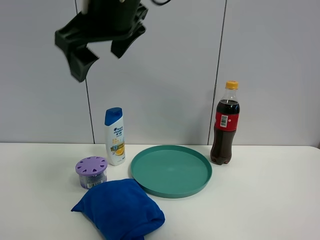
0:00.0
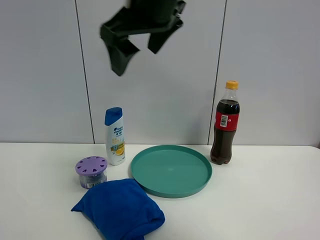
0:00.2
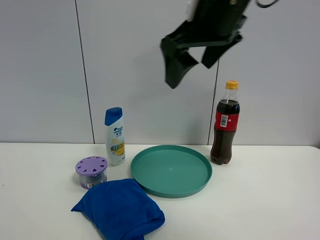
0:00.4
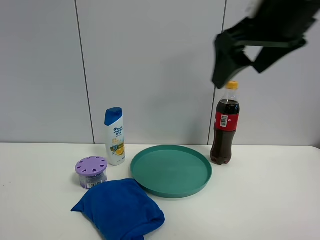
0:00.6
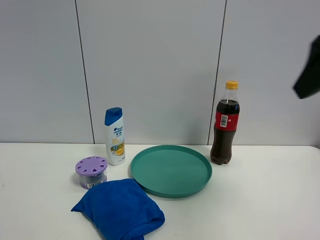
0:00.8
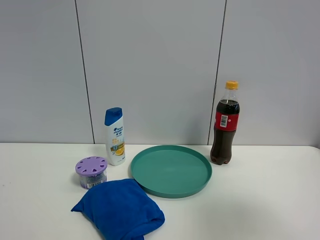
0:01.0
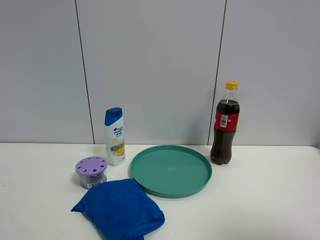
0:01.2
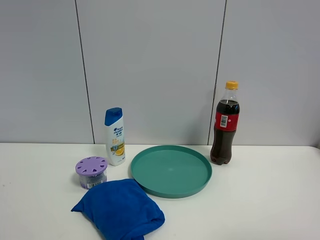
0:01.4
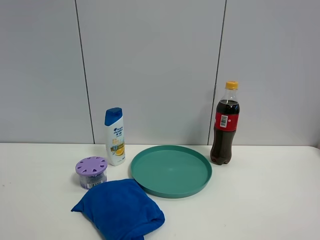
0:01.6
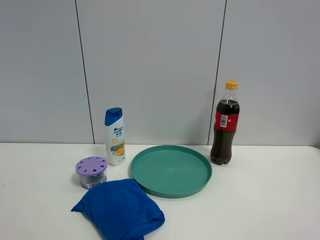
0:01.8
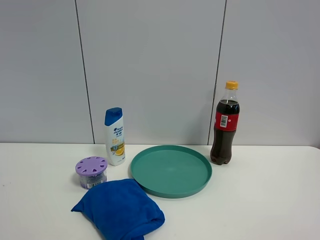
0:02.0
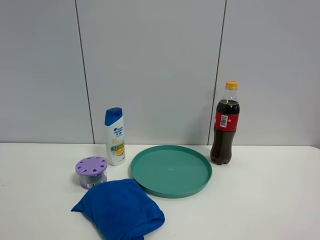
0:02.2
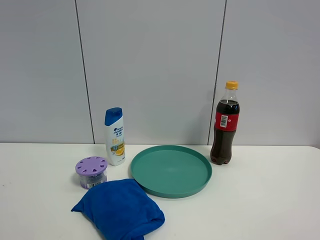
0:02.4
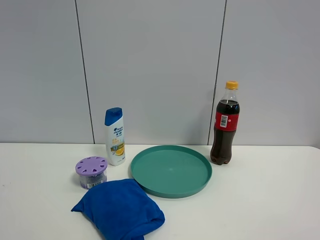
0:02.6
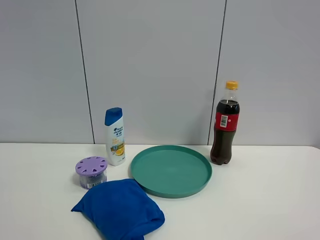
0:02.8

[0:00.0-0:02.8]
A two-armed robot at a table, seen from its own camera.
Task of the whole recording: the gripper move the object.
0:00.0 to 0:01.4: The right gripper goes some 40 cm to the right and backward.

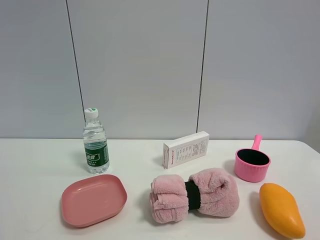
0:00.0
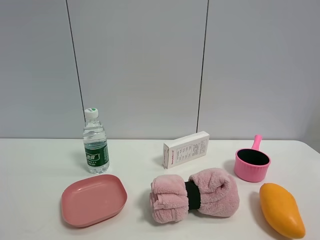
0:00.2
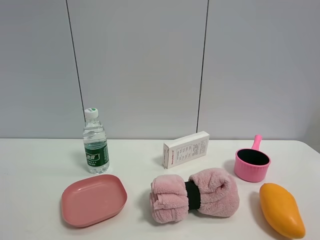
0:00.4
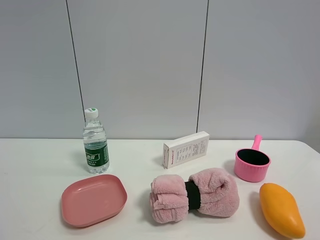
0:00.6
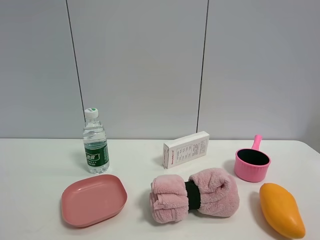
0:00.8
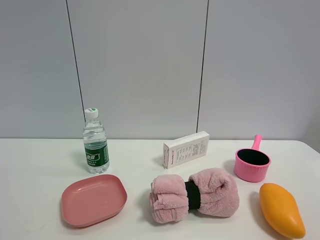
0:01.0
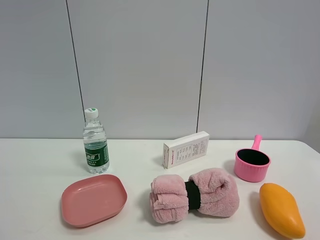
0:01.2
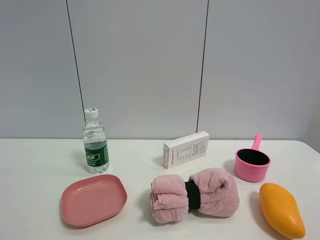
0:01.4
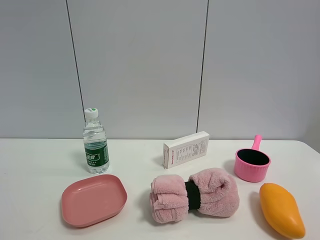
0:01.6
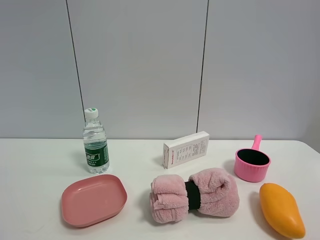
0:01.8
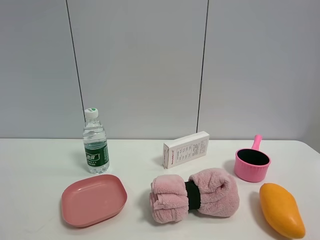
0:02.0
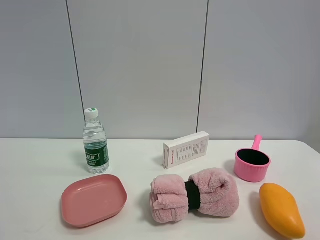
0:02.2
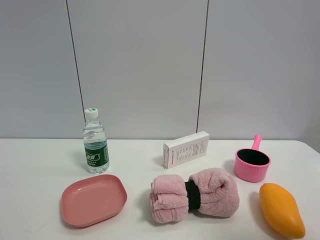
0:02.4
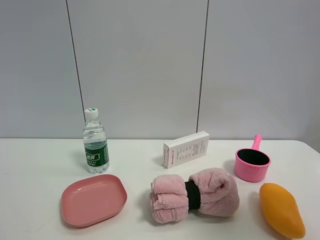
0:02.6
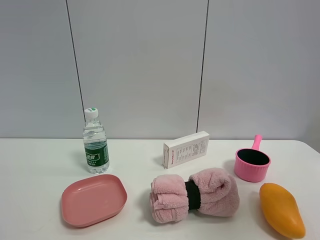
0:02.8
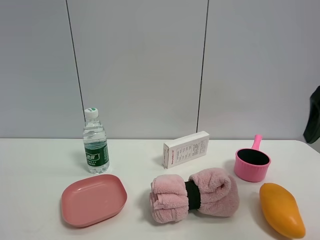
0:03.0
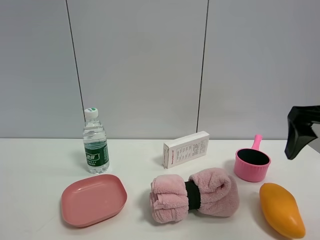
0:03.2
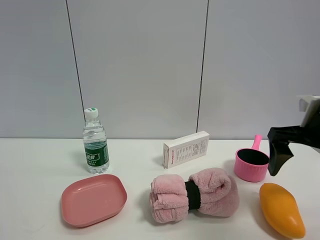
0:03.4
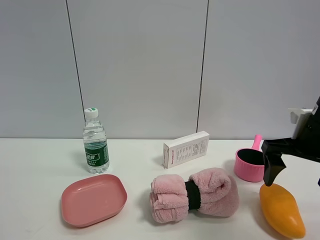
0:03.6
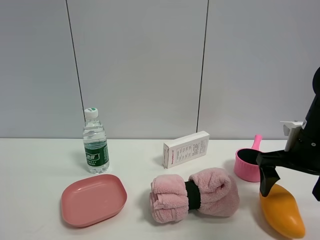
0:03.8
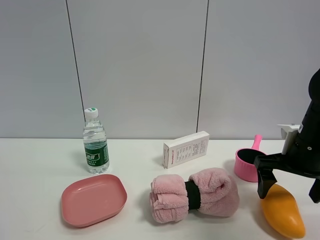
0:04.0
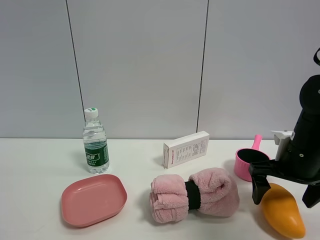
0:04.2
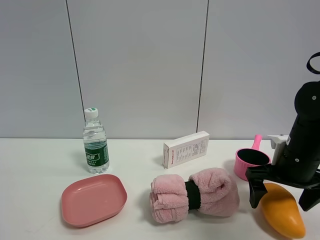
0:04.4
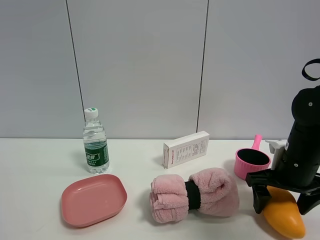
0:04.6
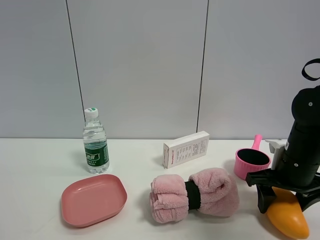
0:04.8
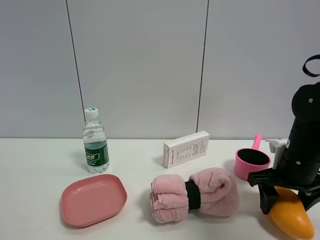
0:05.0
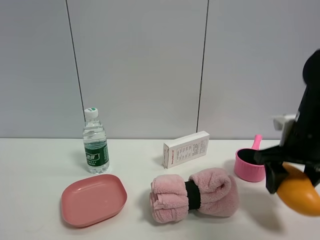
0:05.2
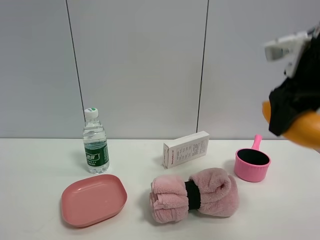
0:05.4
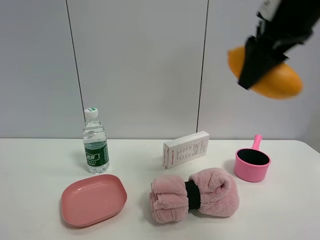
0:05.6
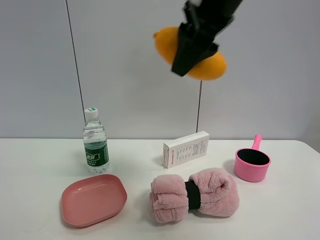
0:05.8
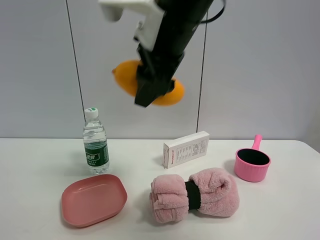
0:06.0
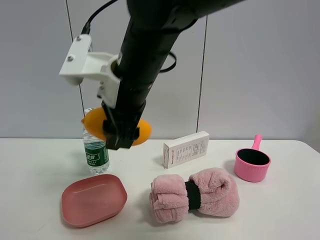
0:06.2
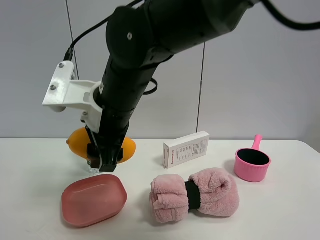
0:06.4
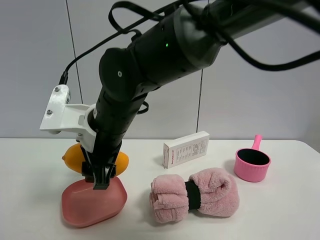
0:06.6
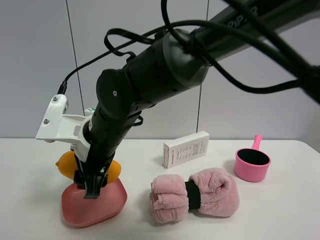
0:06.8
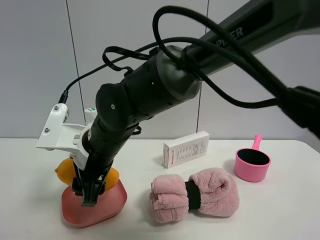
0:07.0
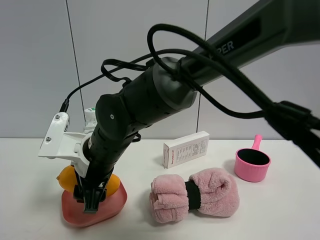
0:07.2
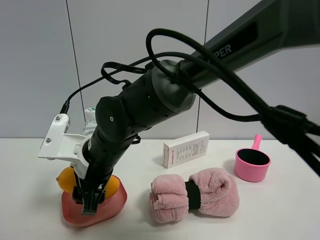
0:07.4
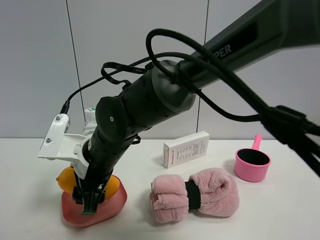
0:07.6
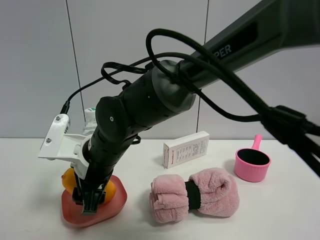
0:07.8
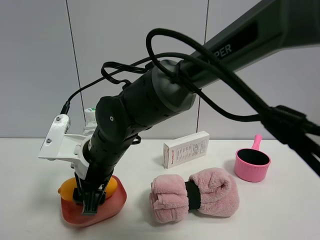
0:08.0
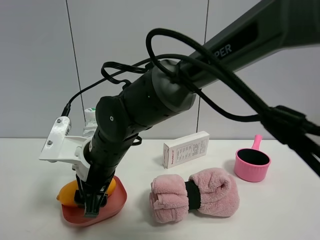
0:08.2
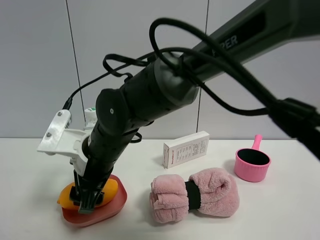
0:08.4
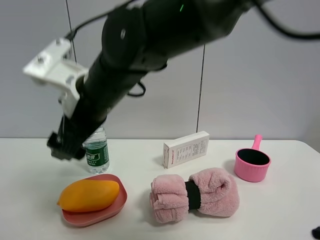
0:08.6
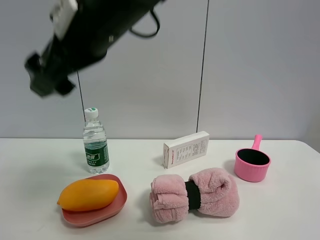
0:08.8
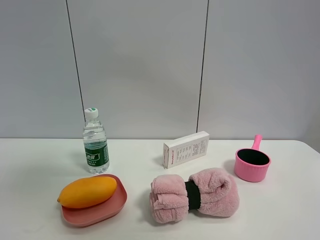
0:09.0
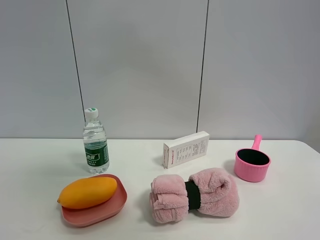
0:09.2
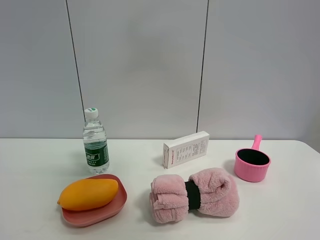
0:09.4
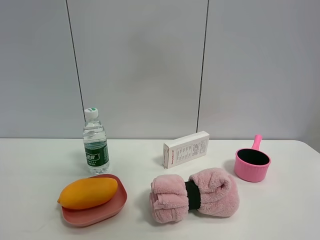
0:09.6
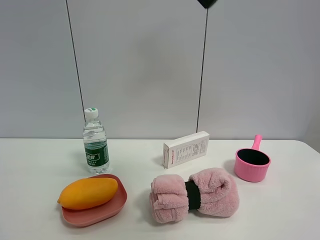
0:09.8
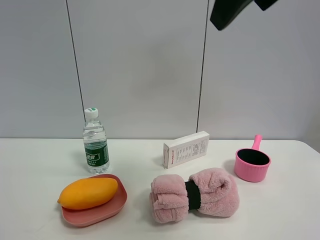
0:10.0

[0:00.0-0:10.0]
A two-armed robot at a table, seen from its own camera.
Task of the whole recording: the gripper move the object.
Step, 0:00.0 to 0:04.6: Grasp the mango with the right gripper.
Step, 0:04.8 to 0:08.0: Place the mango on the table with the right gripper.
0:00.0 to 0:01.4: Both grippers stay put.
0:01.4 to 0:02.8: The right gripper shifts about 20 cm forward.
0:02.8 to 0:04.2: The right gripper moves downward and forward, roughly 20 cm.
0:04.2 to 0:05.8: The right gripper goes approximately 30 cm upward and to the left, and closes its fingers.
0:05.8 to 0:07.2: The right gripper moves downward and to the left, about 30 cm.
0:07.2 to 0:08.6: The right gripper moves upward, about 15 cm, and opens.
0:08.6 to 0:10.0: The right gripper travels to the right and upward by about 25 cm.

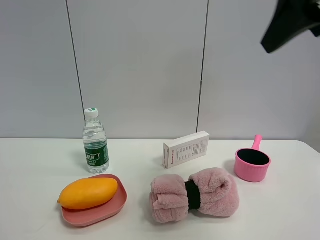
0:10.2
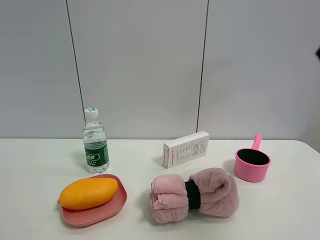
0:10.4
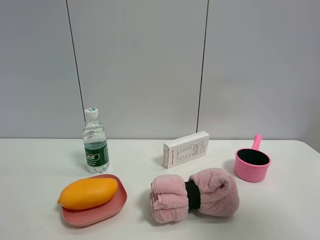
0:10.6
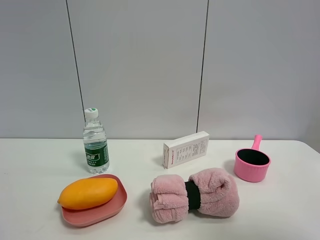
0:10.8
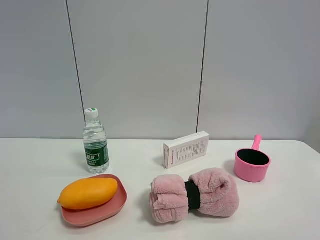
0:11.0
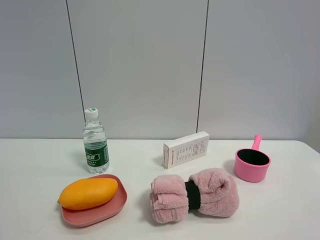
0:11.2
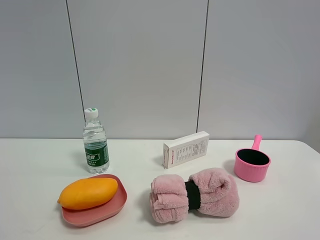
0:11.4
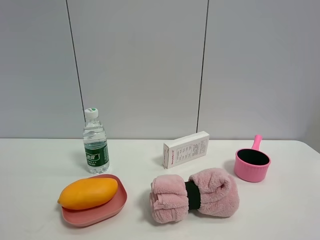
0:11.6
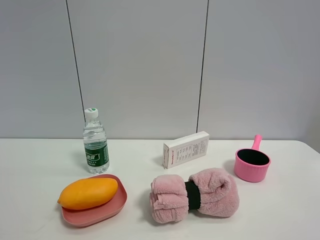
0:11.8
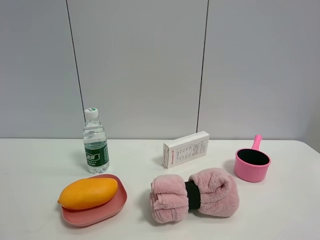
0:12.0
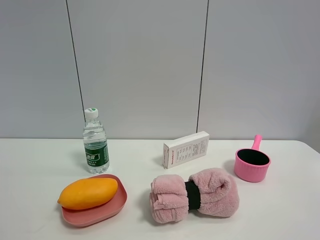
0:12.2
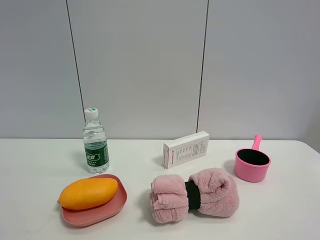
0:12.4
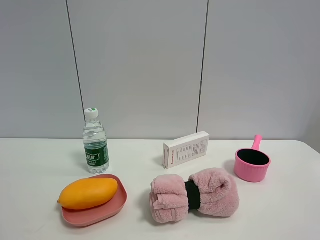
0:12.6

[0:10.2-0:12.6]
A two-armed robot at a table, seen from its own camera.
Task of the whole recording: the gripper move the object.
0:10.2 to 0:11.4: The right gripper heads backward and downward, covering approximately 25 cm.
0:11.4 to 0:12.6: Neither gripper changes place.

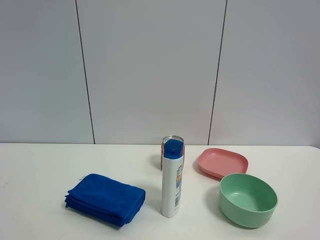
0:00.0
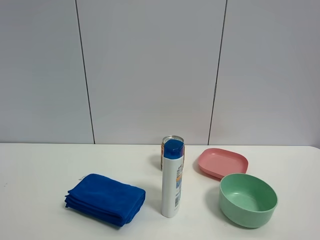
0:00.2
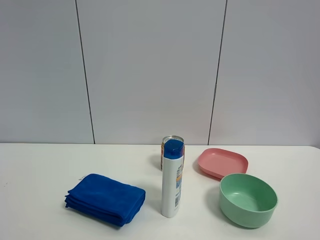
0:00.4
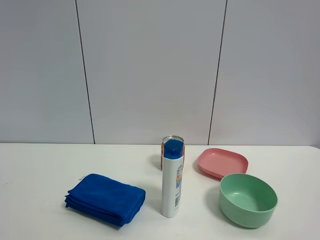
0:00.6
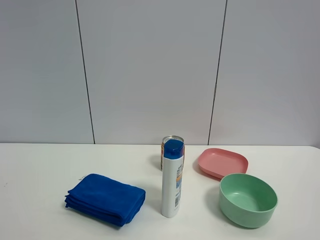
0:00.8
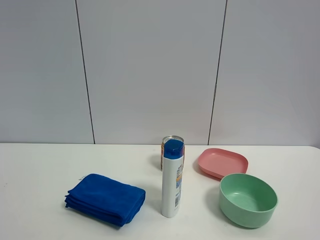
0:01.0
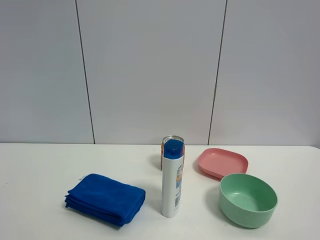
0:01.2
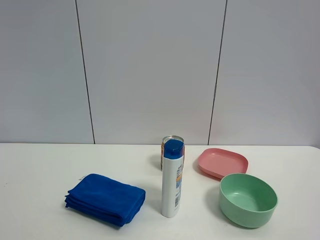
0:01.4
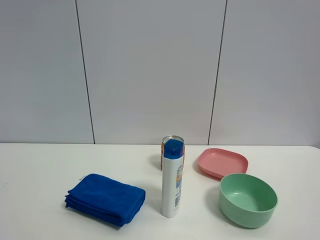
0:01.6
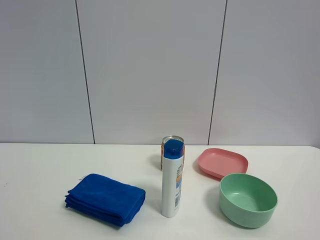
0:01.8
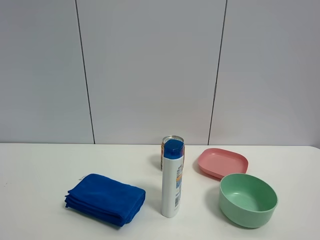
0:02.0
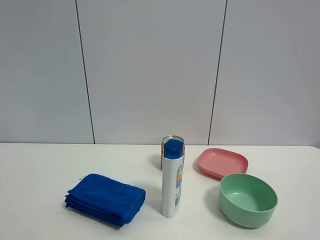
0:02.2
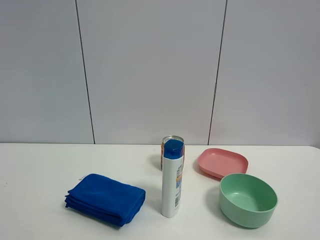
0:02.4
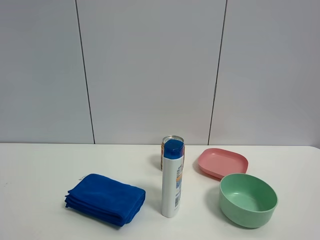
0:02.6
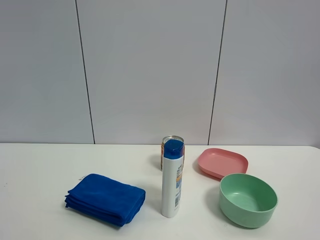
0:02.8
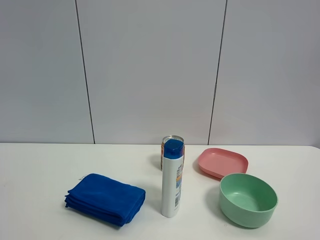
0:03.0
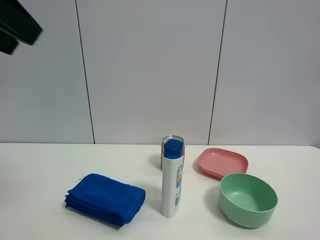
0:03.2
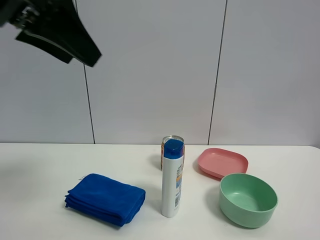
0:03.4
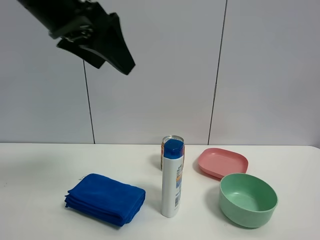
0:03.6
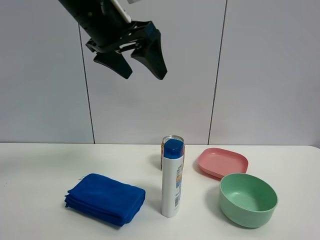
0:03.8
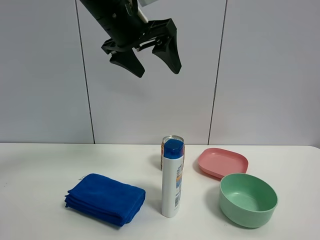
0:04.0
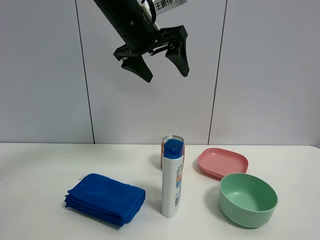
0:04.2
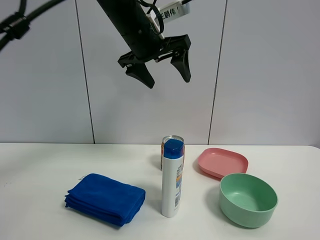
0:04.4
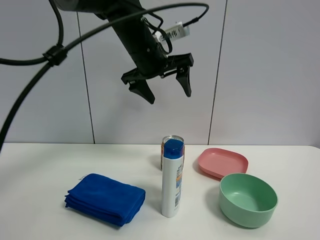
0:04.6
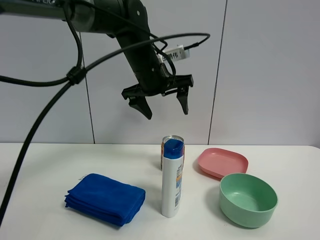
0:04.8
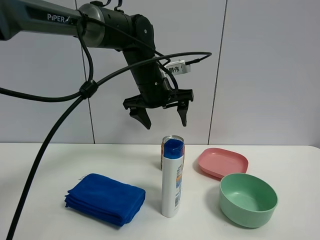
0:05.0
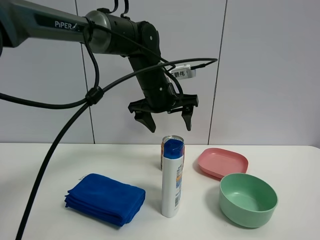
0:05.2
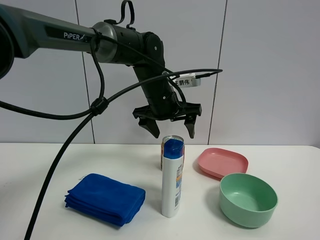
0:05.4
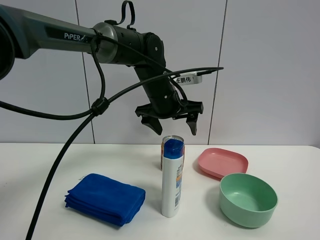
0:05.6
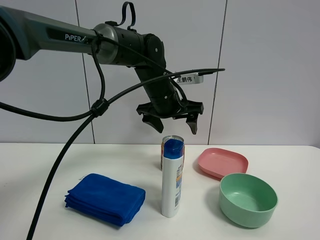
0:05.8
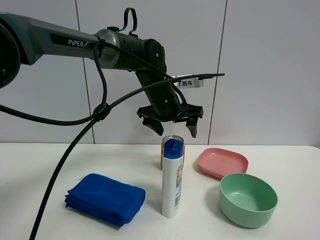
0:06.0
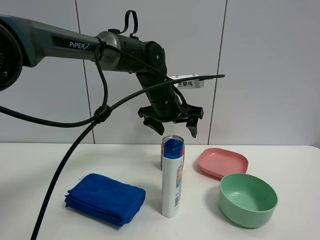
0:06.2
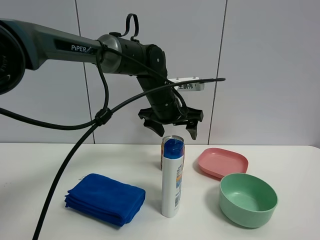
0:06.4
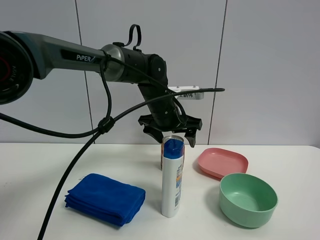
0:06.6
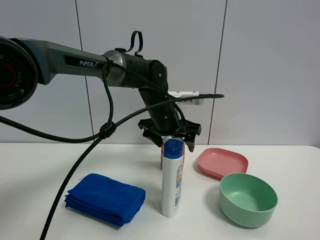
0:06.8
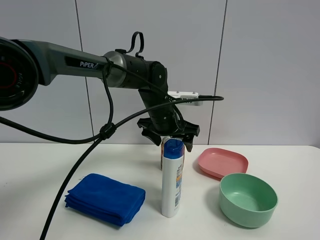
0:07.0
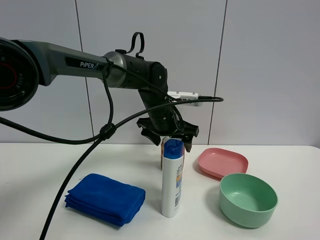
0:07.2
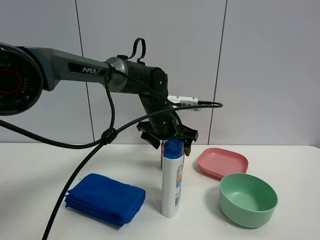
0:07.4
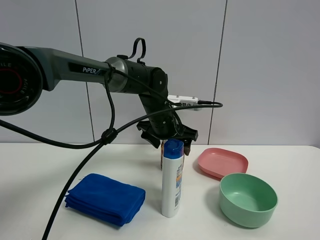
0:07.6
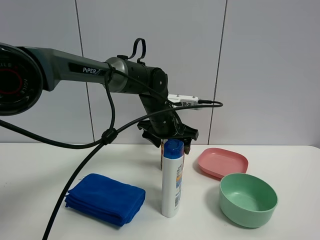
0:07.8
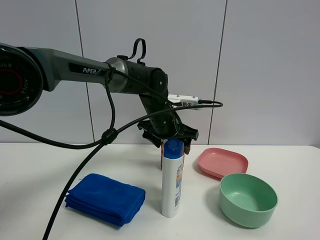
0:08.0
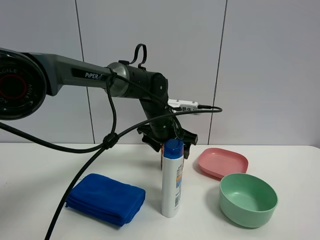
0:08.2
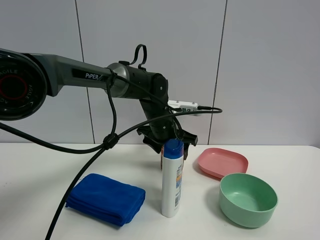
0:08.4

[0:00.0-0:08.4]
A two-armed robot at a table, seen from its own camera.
Task of the whole recording: the gripper move the object.
0:00.0 to 0:01.4: Neither gripper changes place.
0:02.8 to 0:04.2: The left gripper heads forward and to the right, covering approximately 40 cm.
0:04.2 to 0:05.6: The left gripper travels downward and to the right by some 15 cm.
0:05.6 to 0:07.0: The left gripper ends up approximately 5 cm from where it was.
0:07.0 to 0:08.4: The left gripper closes its fingers.
